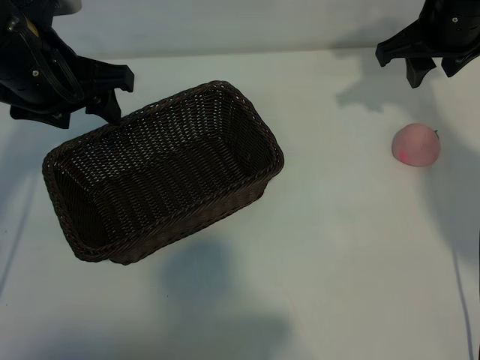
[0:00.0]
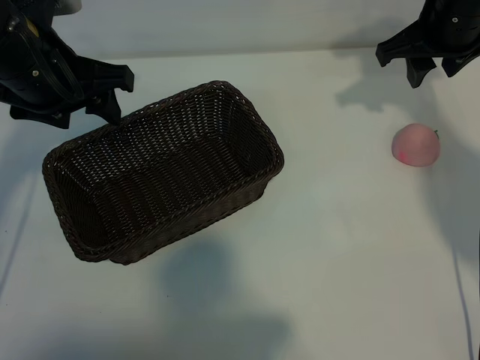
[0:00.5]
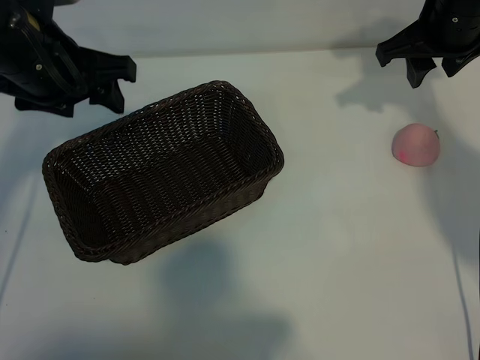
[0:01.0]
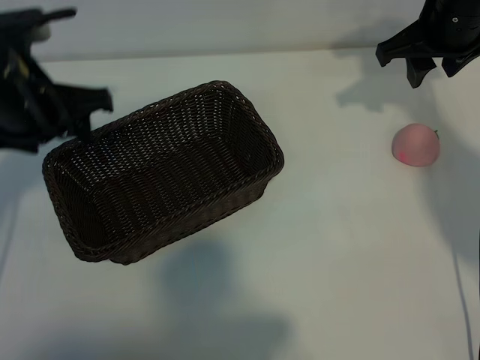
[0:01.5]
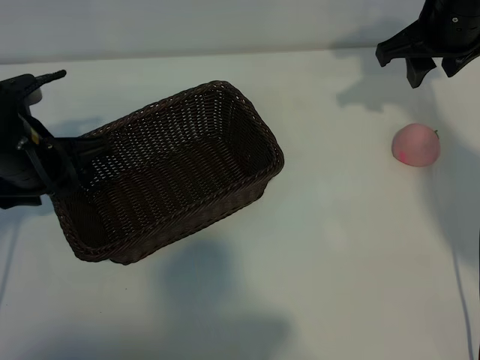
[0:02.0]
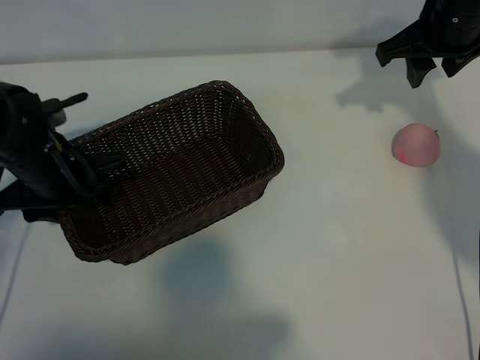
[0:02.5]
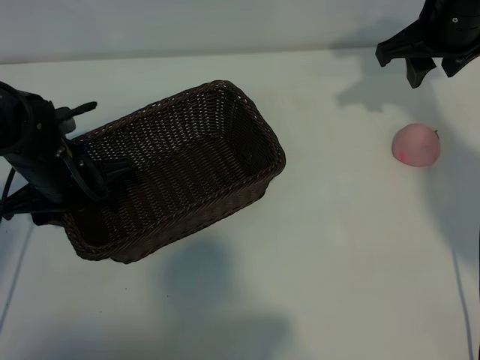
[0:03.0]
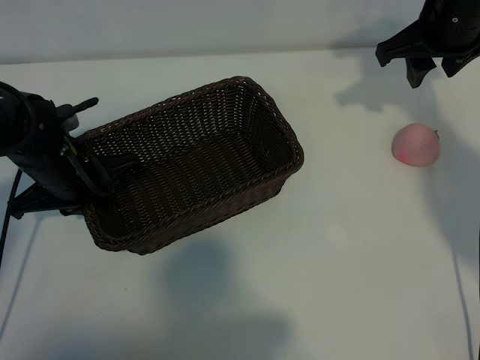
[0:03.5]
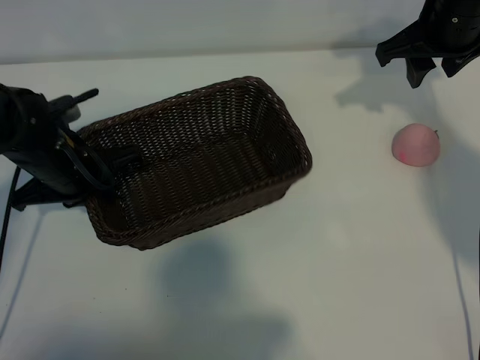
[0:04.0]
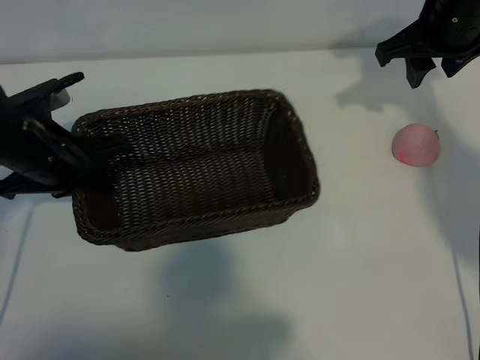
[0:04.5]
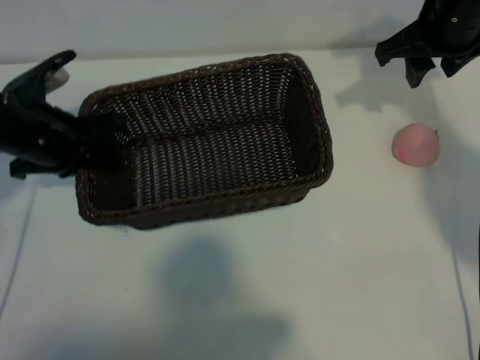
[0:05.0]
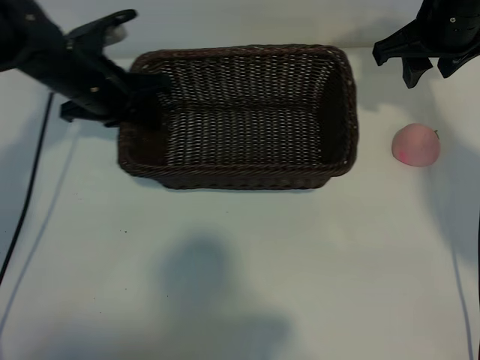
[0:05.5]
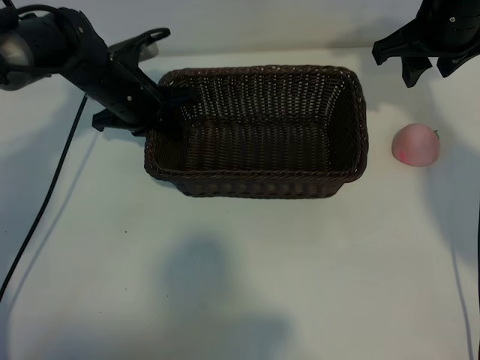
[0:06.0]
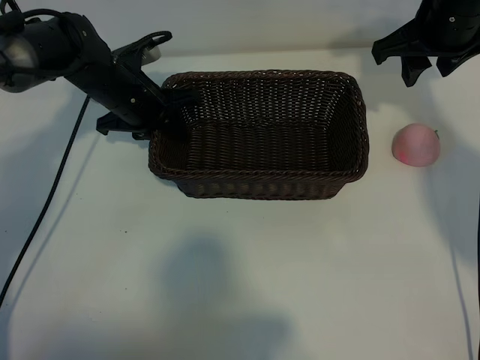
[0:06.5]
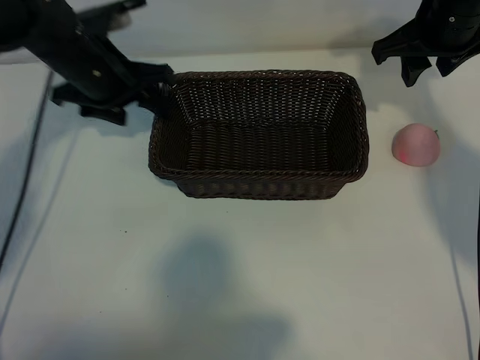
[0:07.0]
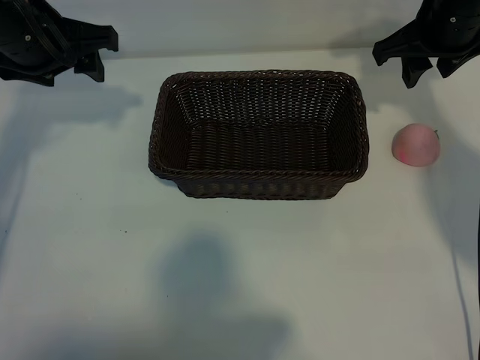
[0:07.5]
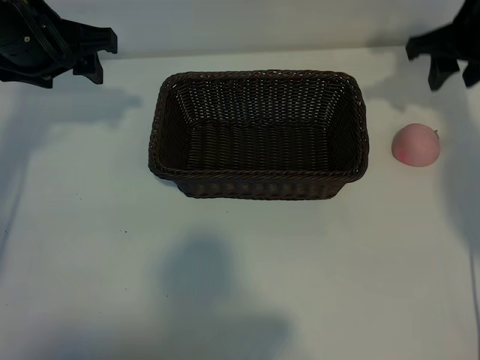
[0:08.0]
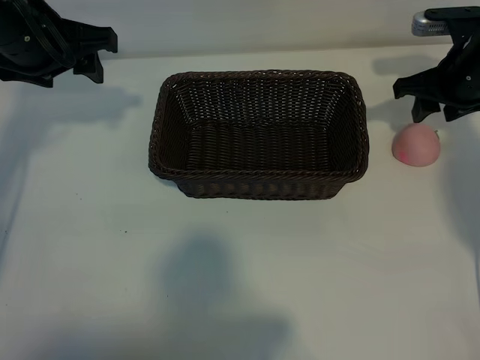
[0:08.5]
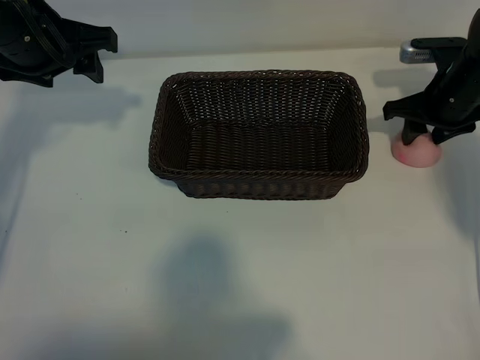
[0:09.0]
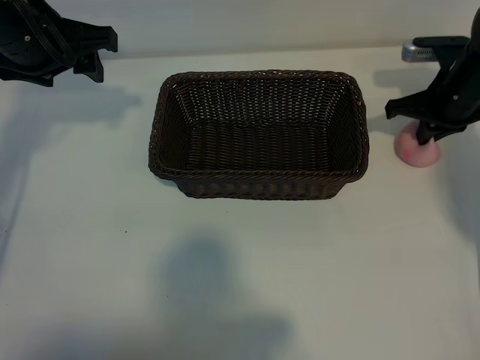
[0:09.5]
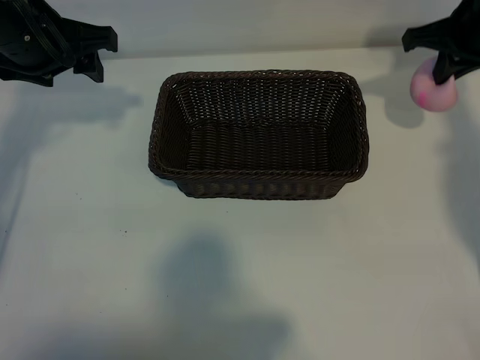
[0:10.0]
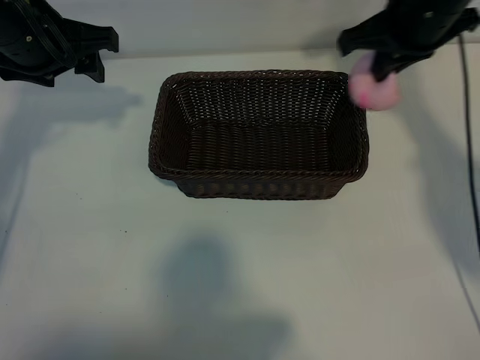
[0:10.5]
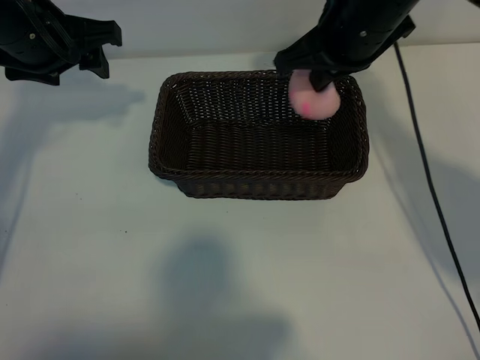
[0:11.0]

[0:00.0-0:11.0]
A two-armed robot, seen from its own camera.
Task of the whole recording: pick up the peach and put it into the basket.
Step, 0:01.0 to 0:03.5: Grasp the basket with left gripper.
Step, 0:04.0 to 0:06.5: Place the basket in the center of view with left gripper.
Step, 0:07.0 to 0:09.0: Grasp the peach with right gripper.
